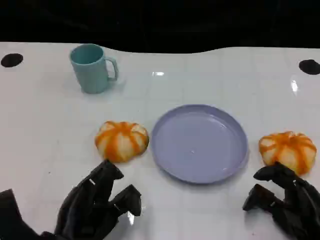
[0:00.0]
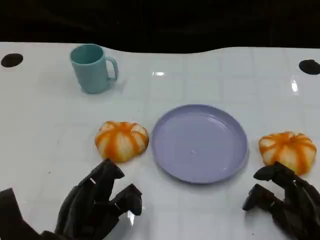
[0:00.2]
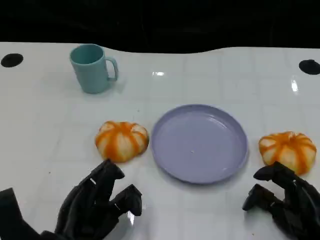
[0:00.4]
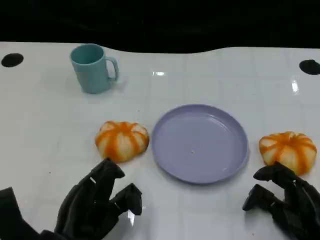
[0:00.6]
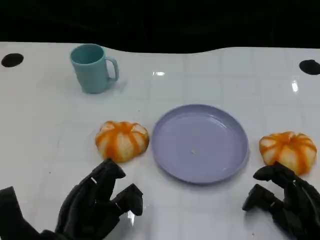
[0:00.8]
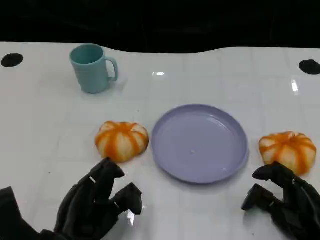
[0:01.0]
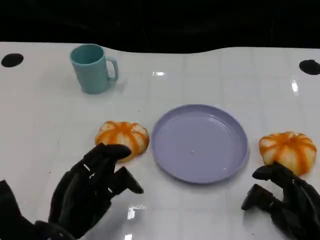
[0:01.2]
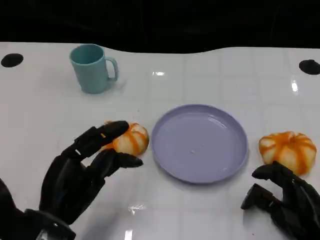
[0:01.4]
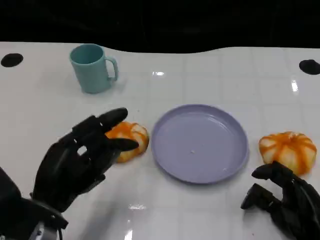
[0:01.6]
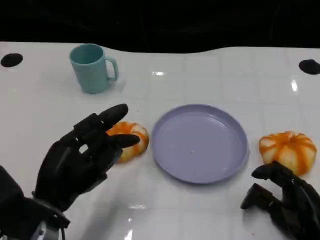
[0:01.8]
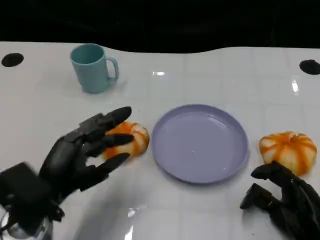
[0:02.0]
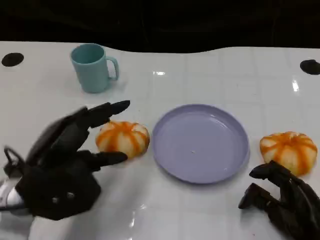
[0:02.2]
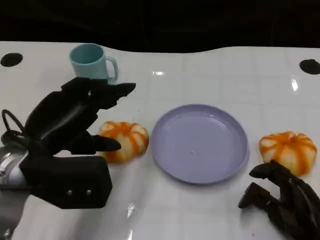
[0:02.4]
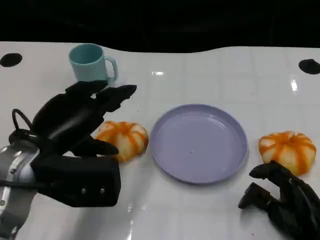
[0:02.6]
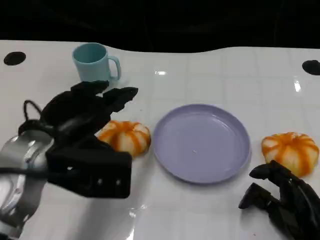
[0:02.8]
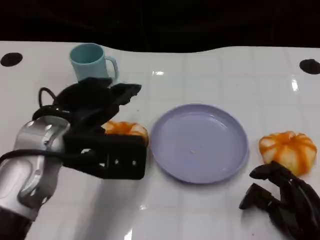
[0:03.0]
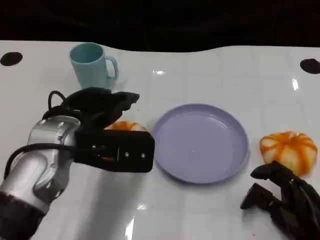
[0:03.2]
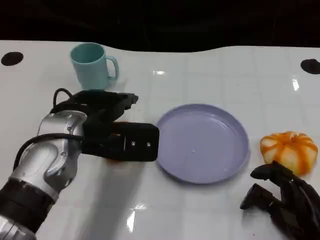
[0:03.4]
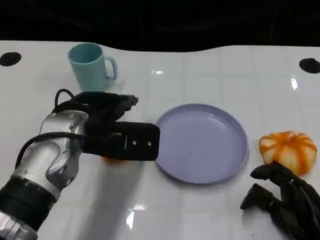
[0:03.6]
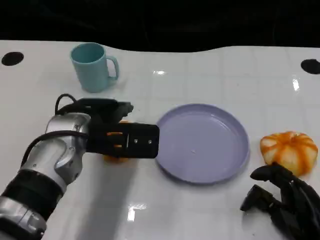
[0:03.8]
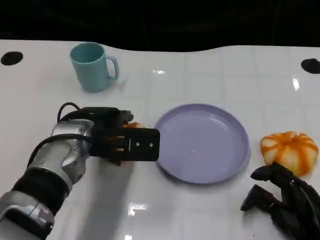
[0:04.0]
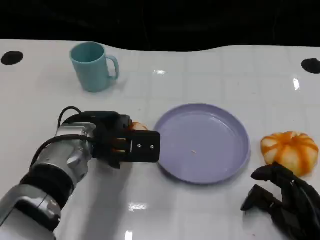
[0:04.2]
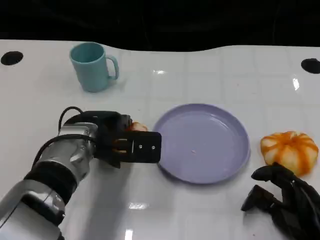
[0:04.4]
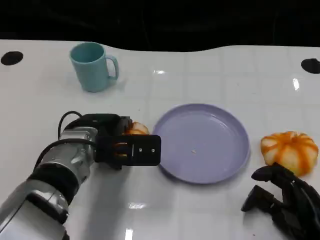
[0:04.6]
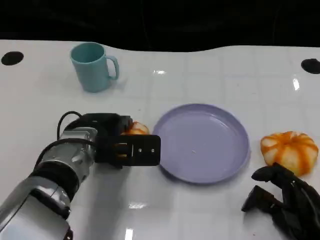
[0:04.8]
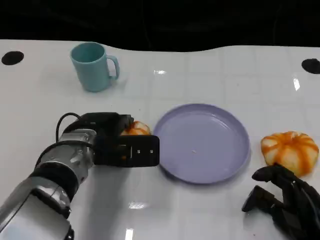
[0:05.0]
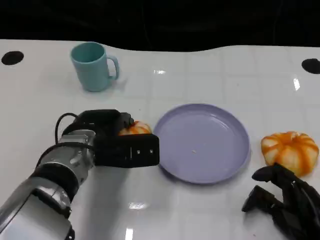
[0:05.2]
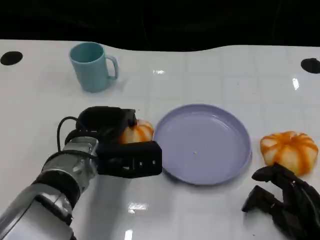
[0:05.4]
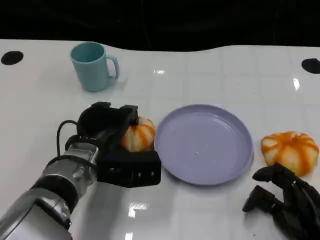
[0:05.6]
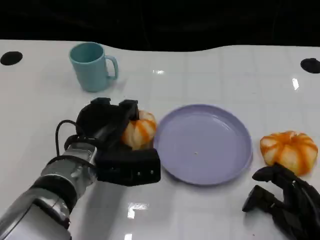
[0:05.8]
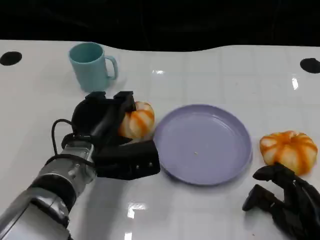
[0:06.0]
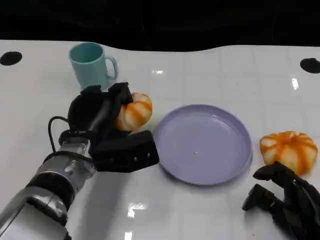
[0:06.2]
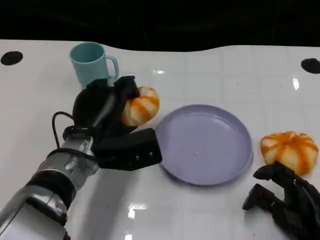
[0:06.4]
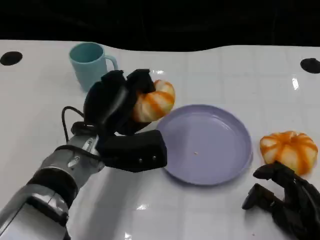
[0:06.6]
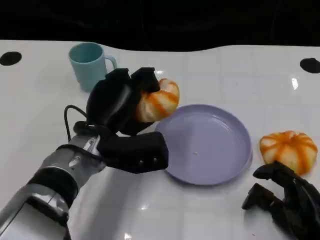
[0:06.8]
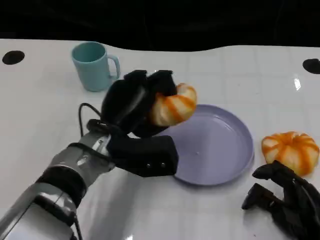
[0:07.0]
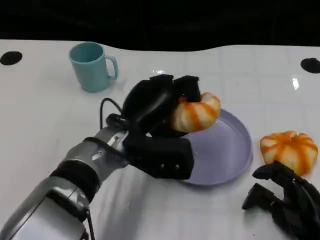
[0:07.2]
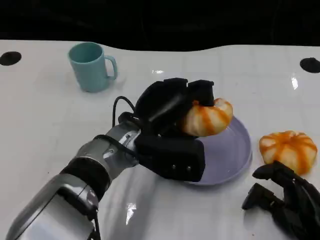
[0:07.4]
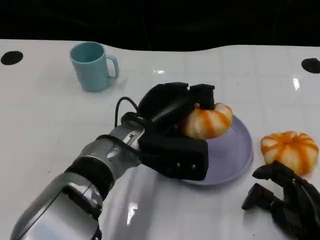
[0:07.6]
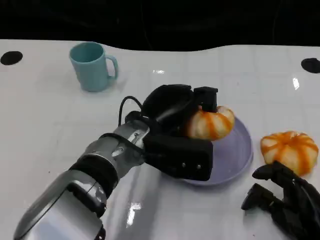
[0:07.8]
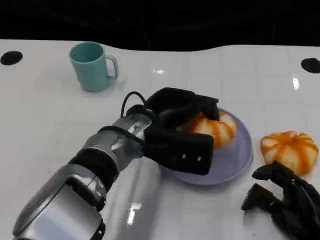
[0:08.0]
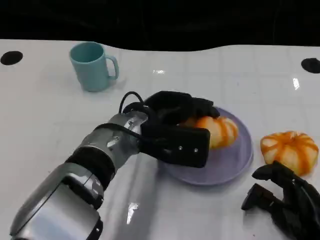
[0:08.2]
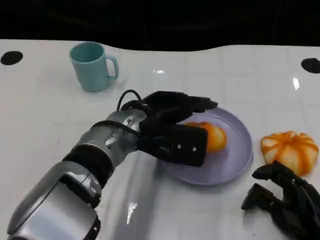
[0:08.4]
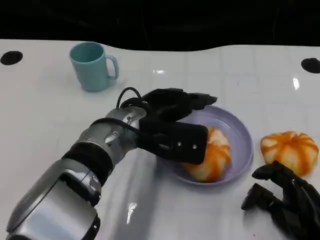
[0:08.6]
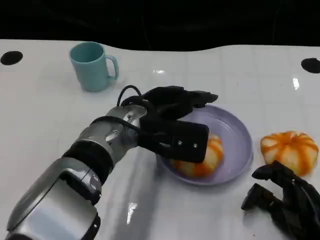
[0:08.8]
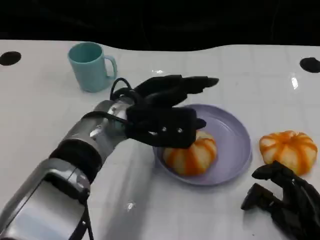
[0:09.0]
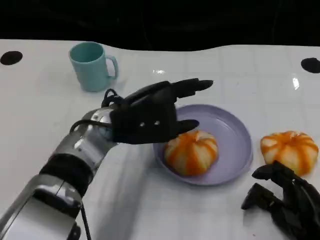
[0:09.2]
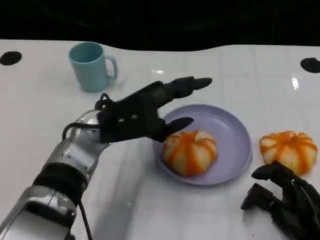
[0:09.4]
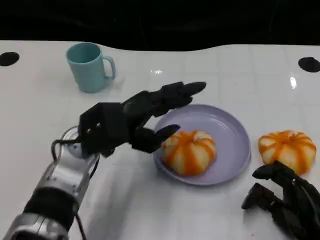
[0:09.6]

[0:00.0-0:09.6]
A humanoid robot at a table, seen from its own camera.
Task of the whole recording: Grasp the bread from the table and place it into the plate.
0:00.0 to 0:01.6: The left hand shifts approximately 5 cm upward.
0:01.6 to 0:03.2: The left hand goes roughly 10 cm forward and upward.
0:03.2 to 0:04.8: The left hand shifts approximately 5 cm downward.
0:06.4 to 0:08.0: The left hand goes roughly 5 cm to the right.
0:08.0 to 0:09.6: The left hand travels to the left by some 10 cm.

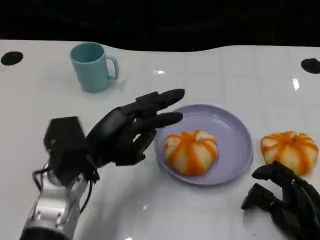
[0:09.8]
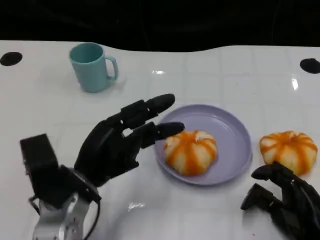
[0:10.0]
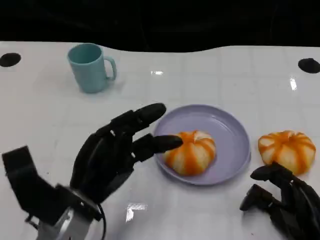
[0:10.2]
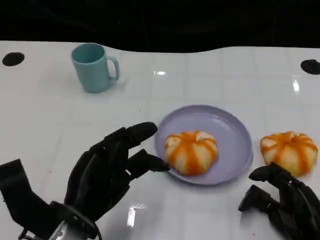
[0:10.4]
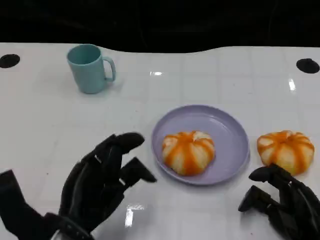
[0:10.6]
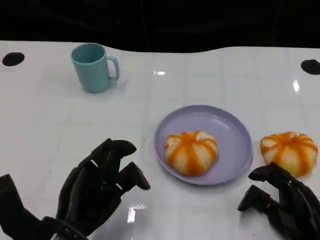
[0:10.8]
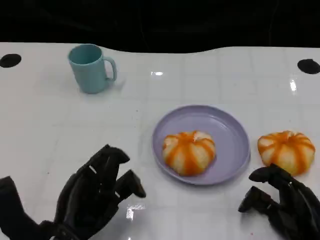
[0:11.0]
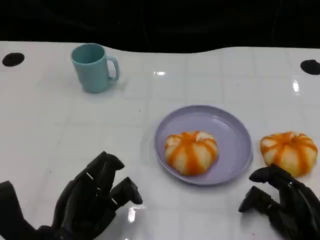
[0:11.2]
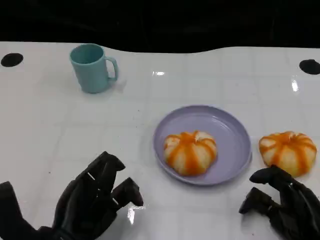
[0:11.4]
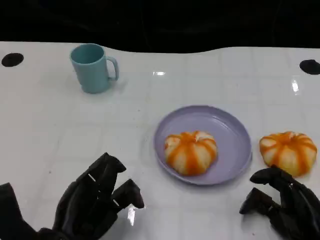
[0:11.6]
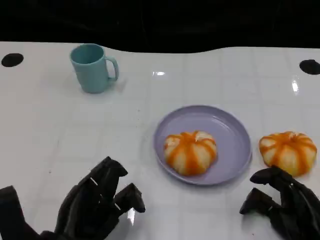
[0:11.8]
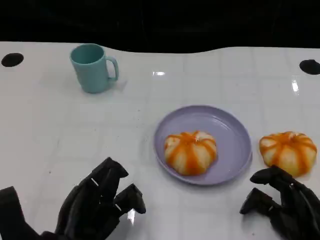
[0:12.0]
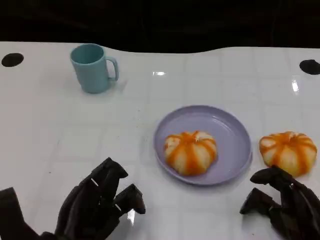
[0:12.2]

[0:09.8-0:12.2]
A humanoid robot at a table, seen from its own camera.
Task of the whole recording: Grasp the bread from the table and place it into the plate.
0:09.8 to 0:11.0: The left hand heads backward, covering some 10 cm.
0:11.0 to 0:12.2: Both hands stay put.

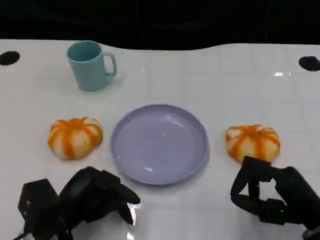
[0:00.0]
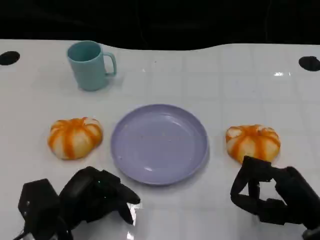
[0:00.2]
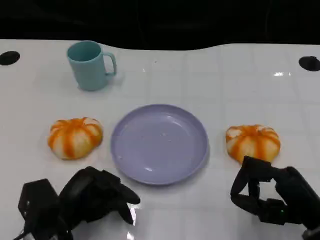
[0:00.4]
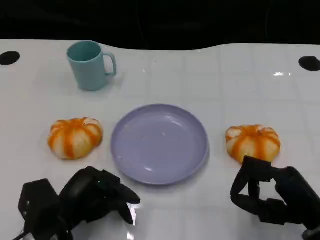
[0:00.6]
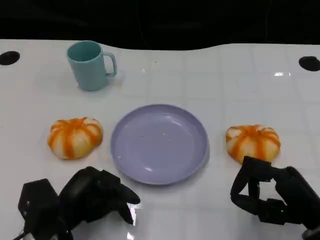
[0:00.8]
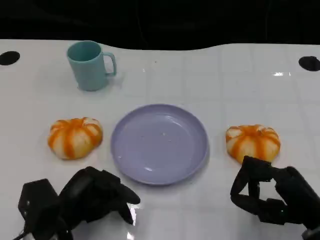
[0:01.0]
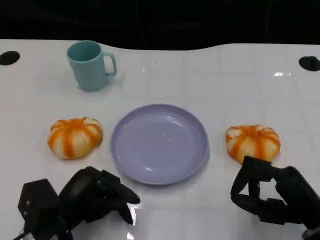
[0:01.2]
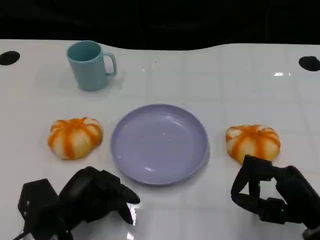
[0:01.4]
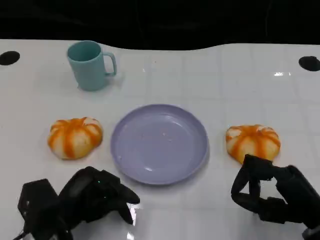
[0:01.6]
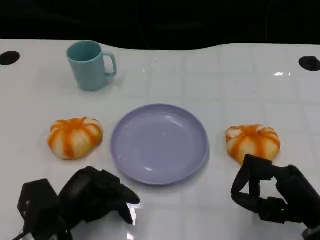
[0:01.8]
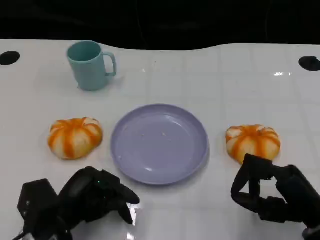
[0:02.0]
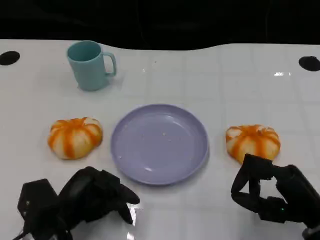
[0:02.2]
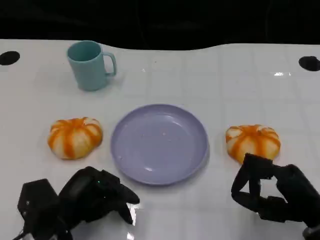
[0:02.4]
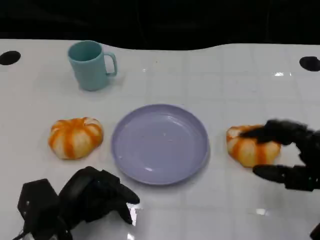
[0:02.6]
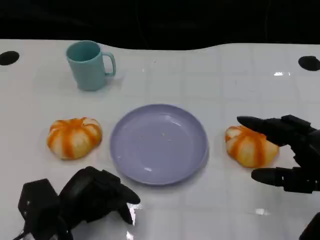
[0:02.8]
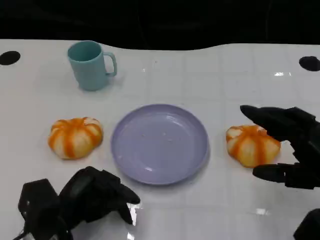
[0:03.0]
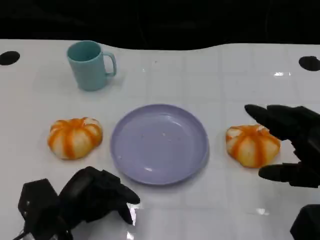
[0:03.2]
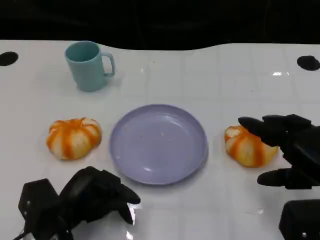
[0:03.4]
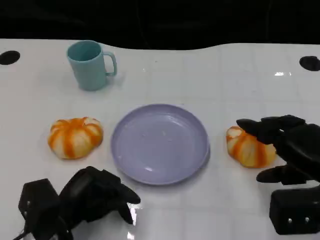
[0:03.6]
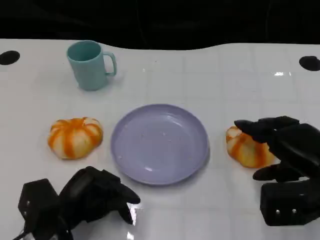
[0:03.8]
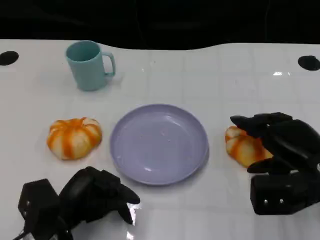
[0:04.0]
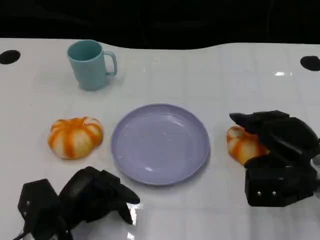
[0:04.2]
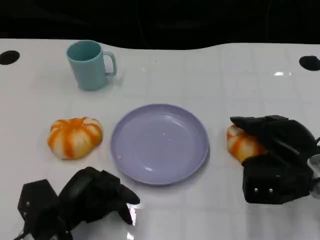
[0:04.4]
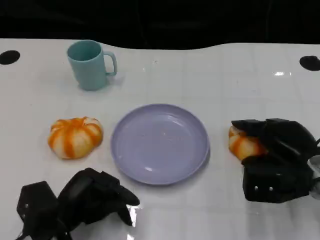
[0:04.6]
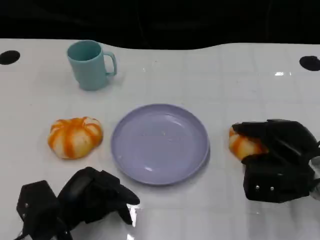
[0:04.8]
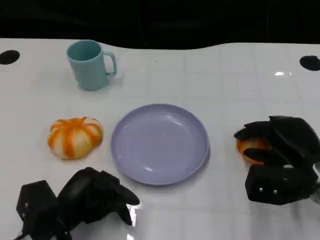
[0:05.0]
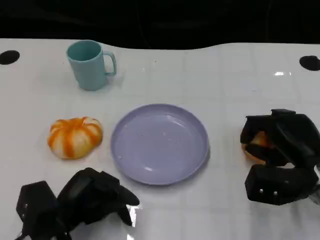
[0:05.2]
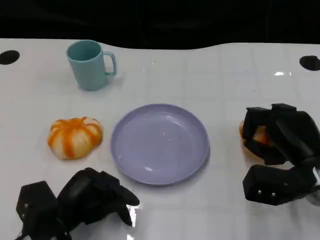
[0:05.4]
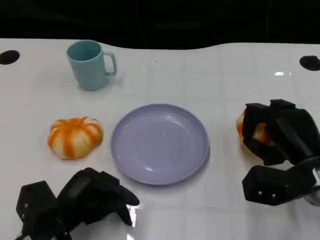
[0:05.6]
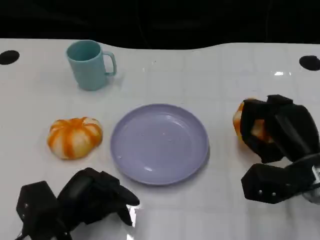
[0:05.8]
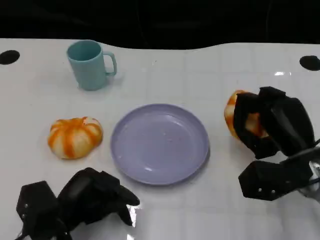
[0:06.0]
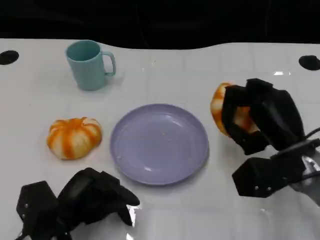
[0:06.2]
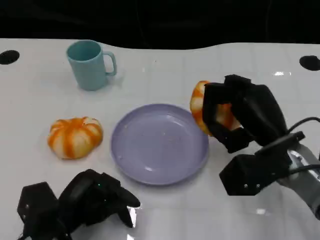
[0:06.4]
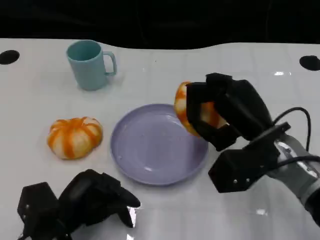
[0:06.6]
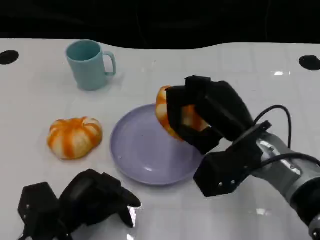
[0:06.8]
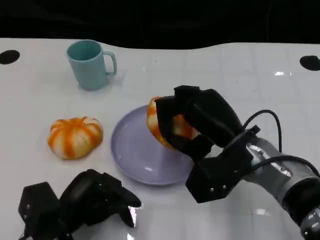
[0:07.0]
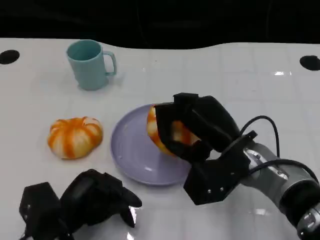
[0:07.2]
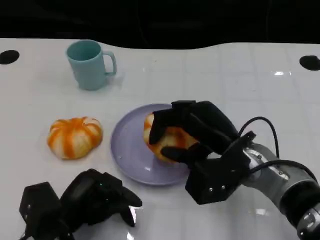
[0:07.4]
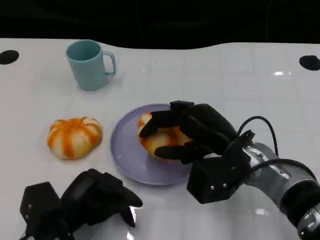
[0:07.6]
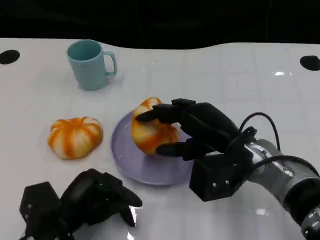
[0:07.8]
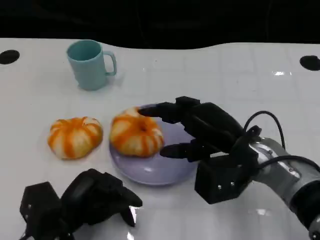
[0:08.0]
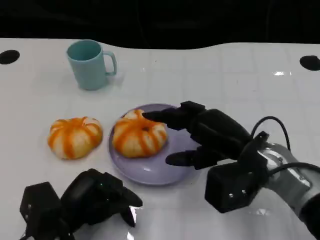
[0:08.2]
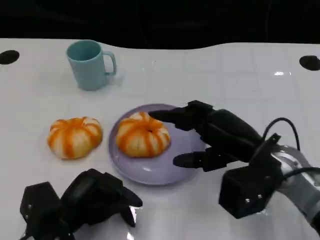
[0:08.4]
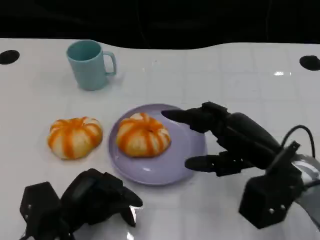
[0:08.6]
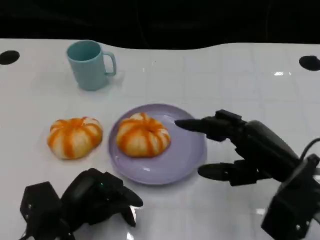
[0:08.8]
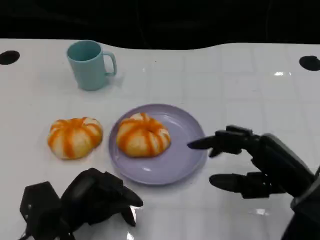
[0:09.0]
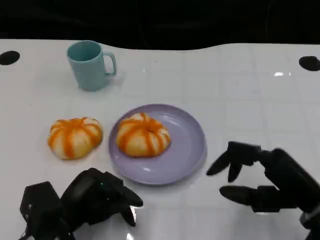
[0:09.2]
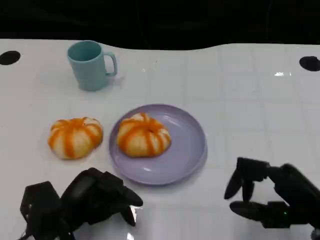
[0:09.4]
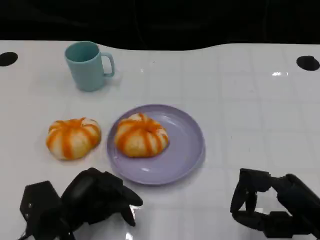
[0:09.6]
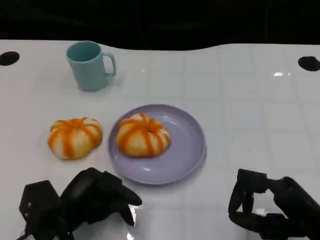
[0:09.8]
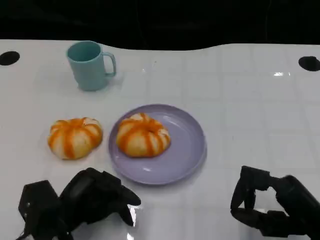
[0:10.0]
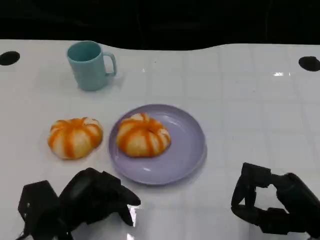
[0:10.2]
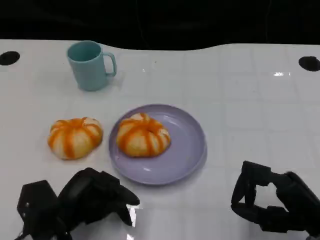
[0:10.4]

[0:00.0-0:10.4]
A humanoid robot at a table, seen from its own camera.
Task of the whole recording: Grasp the bread from the table and place it into the plate.
0:00.0 to 0:01.4: The two hands keep their place.
0:01.4 to 0:03.0: The right hand heads upward, covering approximately 10 cm.
0:03.0 to 0:04.4: The right hand travels forward and downward by approximately 10 cm.
0:06.0 to 0:07.4: The right hand moves to the left, approximately 10 cm.
0:07.4 to 0:09.0: The right hand moves to the right and backward, some 10 cm.
0:09.0 to 0:10.4: The right hand moves about 5 cm.
